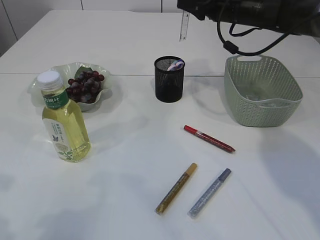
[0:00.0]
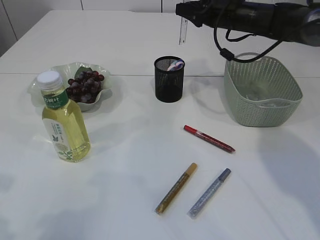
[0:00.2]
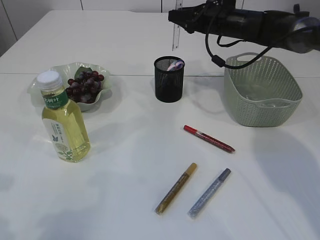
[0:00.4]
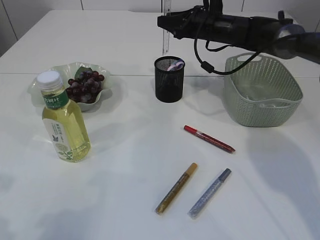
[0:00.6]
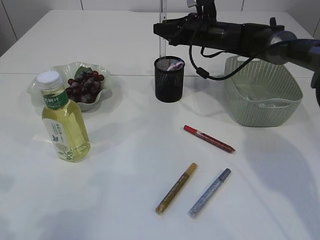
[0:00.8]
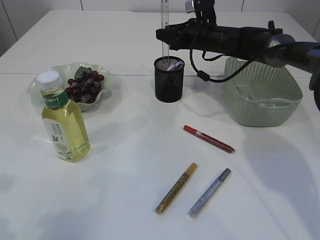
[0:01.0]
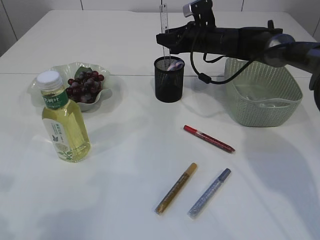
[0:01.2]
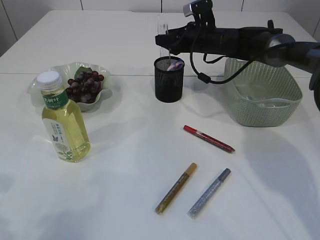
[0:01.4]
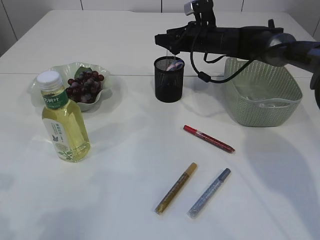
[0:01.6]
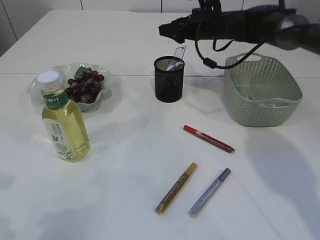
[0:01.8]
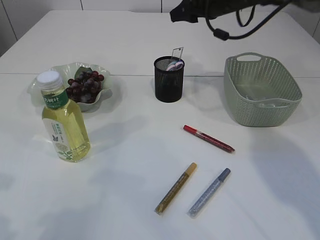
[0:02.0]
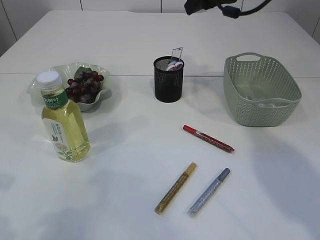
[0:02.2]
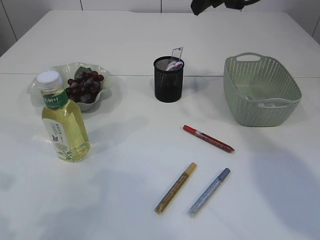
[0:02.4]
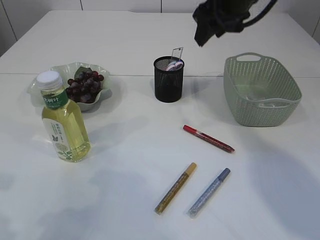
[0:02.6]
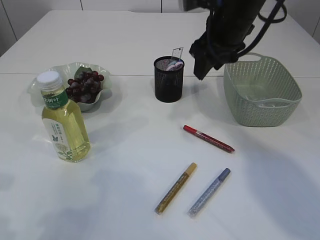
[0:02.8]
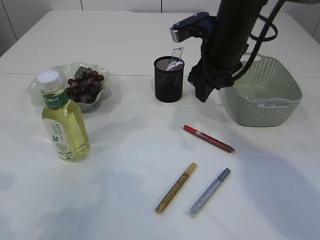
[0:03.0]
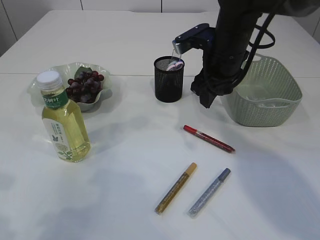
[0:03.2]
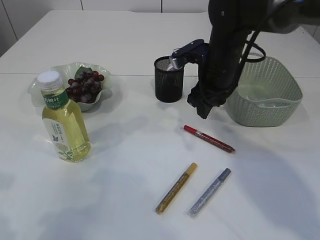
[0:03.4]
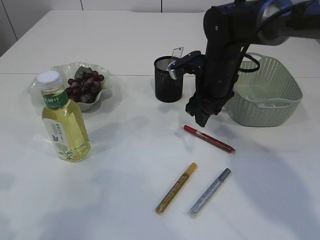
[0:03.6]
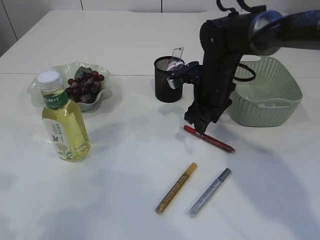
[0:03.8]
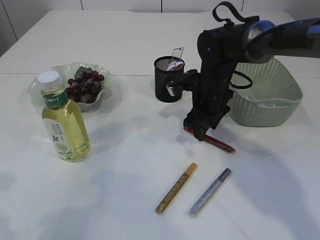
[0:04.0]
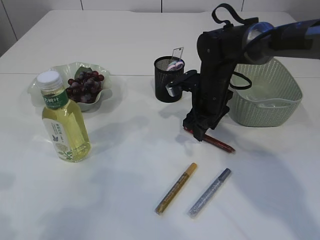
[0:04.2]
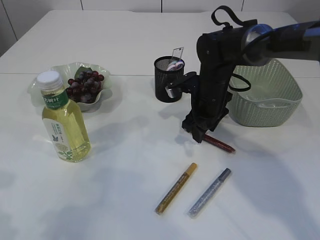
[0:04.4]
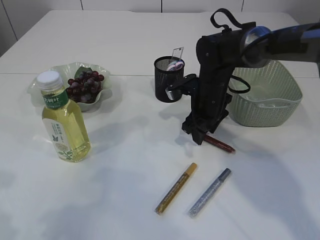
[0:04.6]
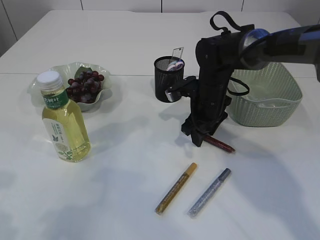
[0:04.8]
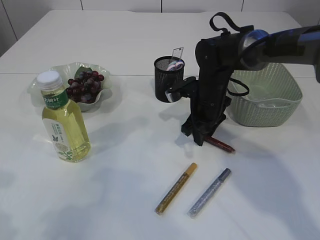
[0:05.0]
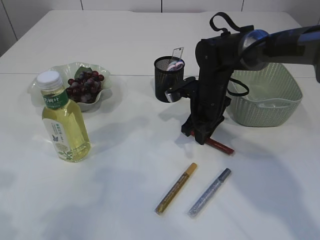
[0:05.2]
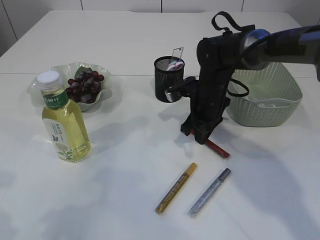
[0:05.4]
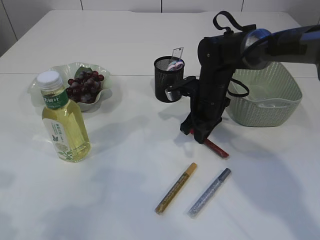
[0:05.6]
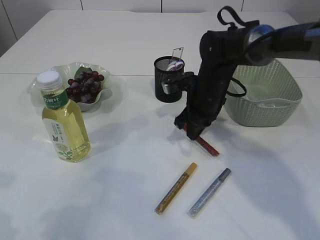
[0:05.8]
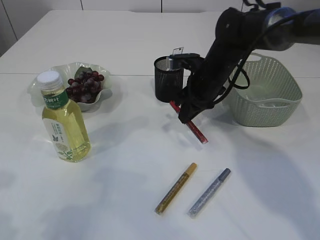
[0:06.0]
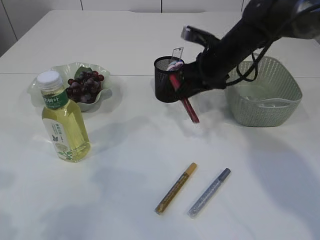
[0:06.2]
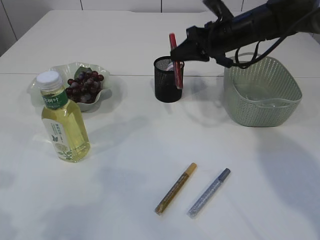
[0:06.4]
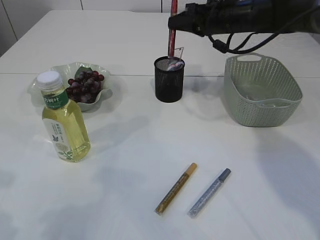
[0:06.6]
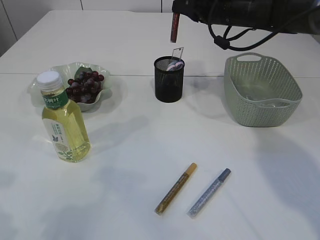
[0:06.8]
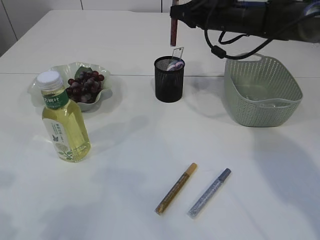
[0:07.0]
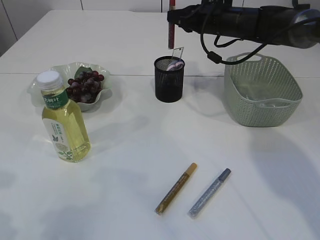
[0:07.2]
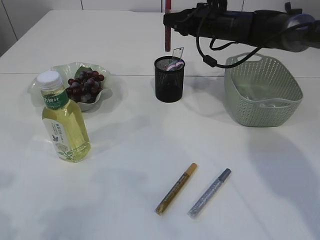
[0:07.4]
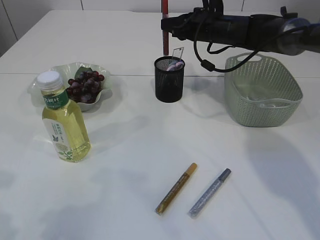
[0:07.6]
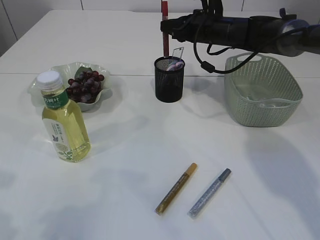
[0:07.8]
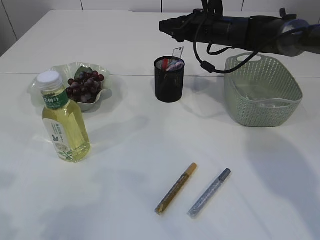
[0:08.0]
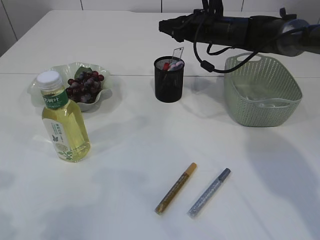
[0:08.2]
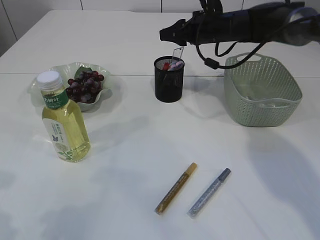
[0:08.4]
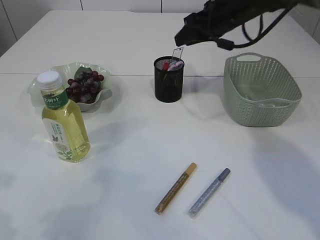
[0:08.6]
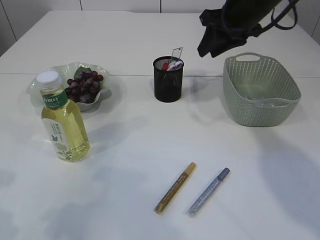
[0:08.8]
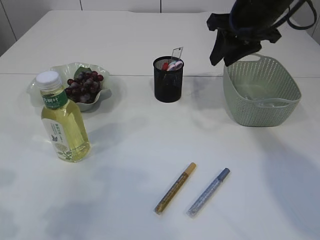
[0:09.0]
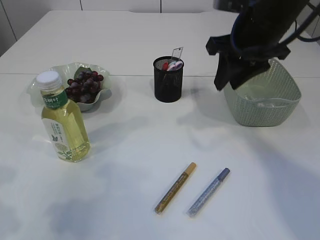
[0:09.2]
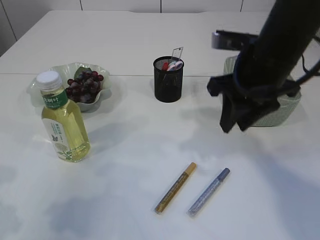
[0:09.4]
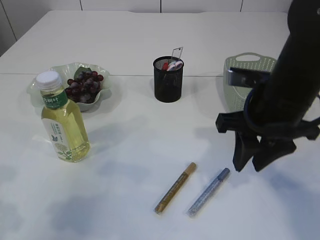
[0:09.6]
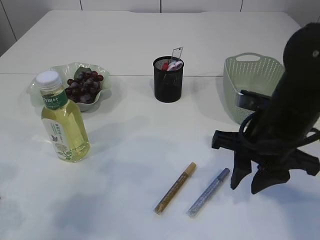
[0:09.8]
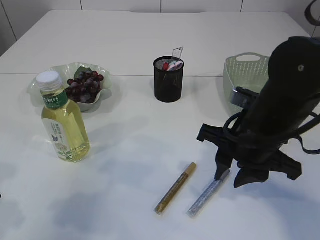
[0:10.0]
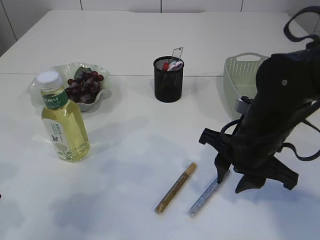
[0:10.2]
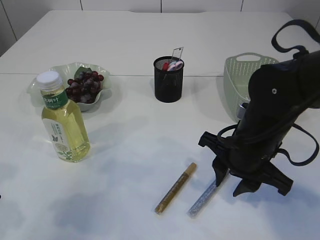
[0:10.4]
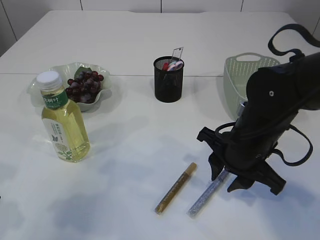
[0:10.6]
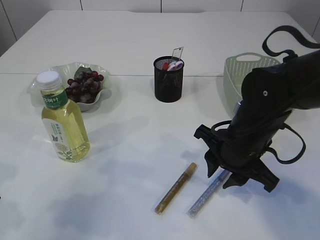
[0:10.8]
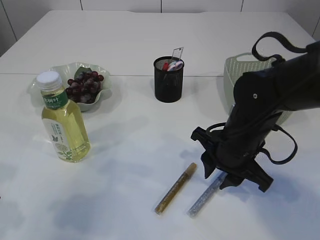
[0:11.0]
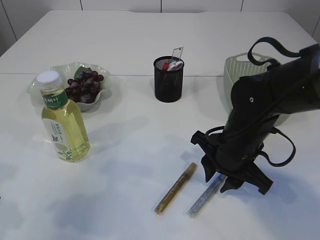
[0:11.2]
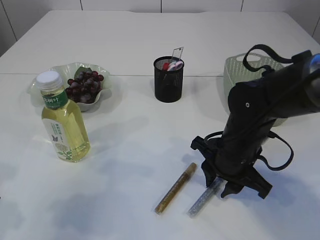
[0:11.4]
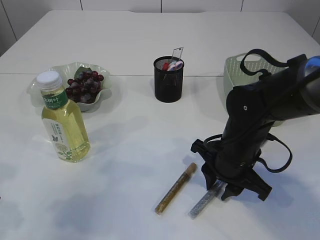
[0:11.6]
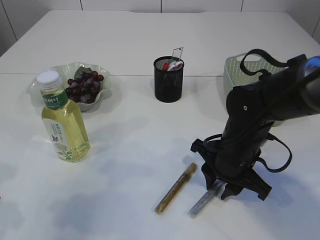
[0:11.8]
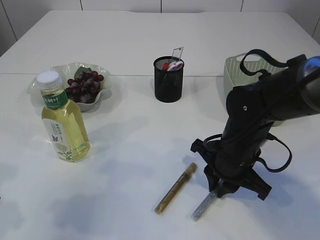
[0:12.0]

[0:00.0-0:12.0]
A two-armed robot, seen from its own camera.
Step, 0:00.0 to 0:01.8: Place the ruler into the pen holder.
Step, 0:02.0 to 0:06.2: pick up the red glue.
Step, 0:06.4 to 0:08.8: place the red glue into the pen holder.
0:00.0 to 0:01.6: The right gripper goes about 10 cm downward.
0:01.6 to 0:03.0: The right gripper shifts roughly 15 cm backward and upward.
0:03.0 to 0:04.4: The right gripper shifts about 15 cm downward.
0:04.4 to 0:06.0: The right gripper closes up.
0:06.0 to 0:07.6: The right gripper goes some 10 cm forward and upward.
0:07.6 to 0:09.0: The right gripper travels backward and upward by about 15 cm, and opens up.
0:09.0 to 0:10.4: The right gripper is displaced backward and downward by approximately 20 cm.
0:10.4 to 0:12.0: The right gripper ends up roughly 5 cm from where it was.

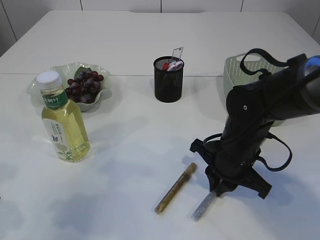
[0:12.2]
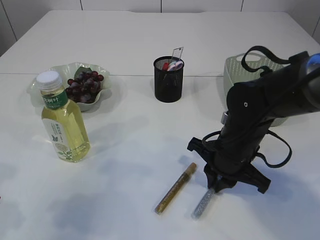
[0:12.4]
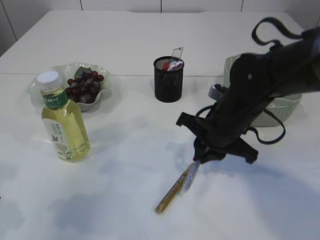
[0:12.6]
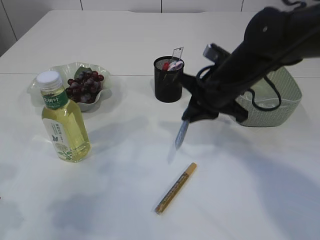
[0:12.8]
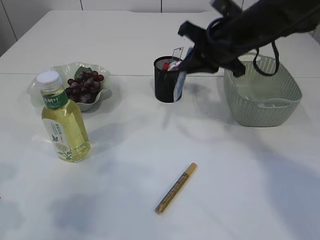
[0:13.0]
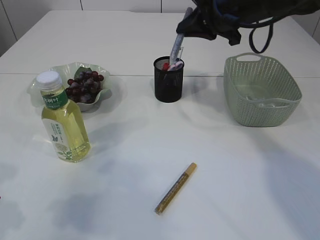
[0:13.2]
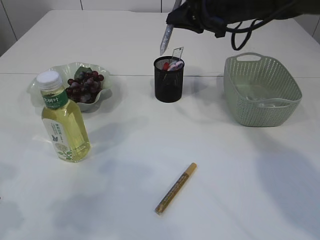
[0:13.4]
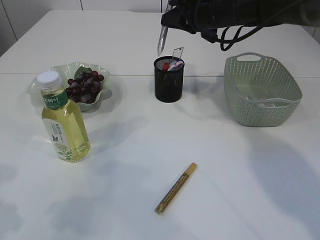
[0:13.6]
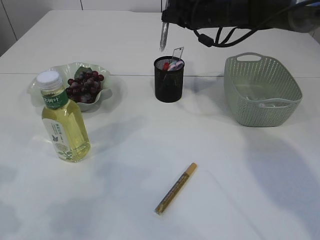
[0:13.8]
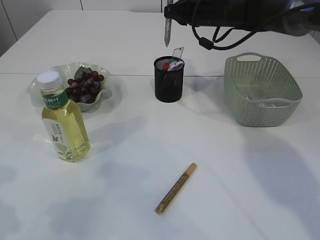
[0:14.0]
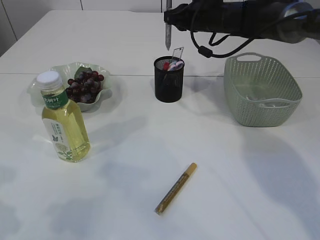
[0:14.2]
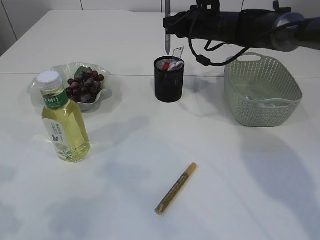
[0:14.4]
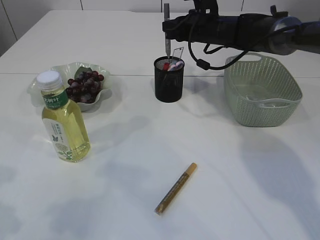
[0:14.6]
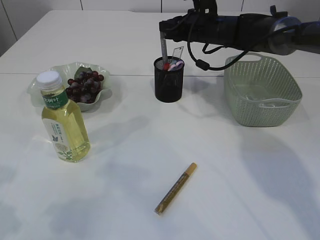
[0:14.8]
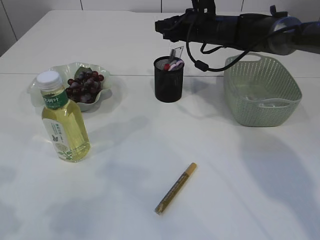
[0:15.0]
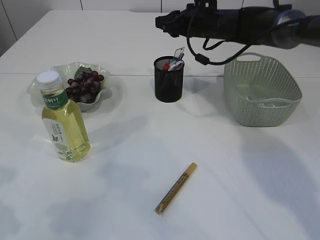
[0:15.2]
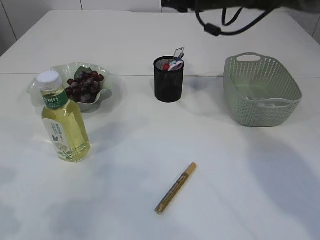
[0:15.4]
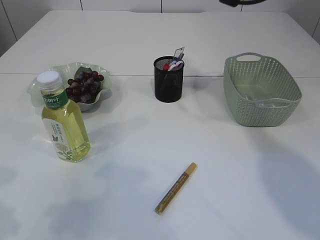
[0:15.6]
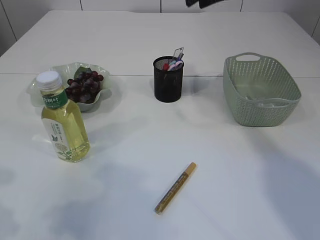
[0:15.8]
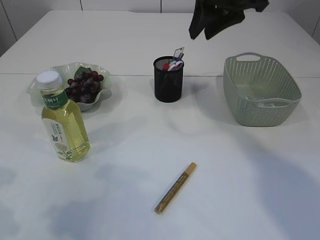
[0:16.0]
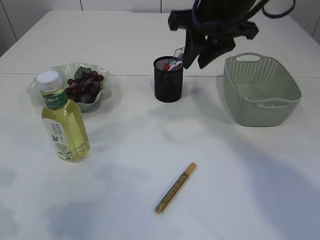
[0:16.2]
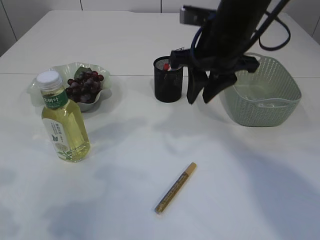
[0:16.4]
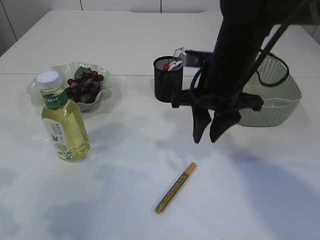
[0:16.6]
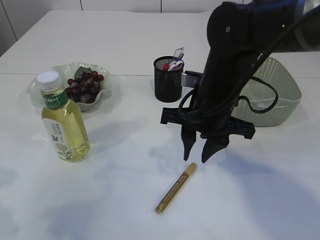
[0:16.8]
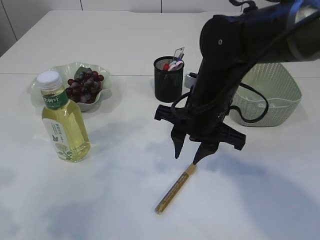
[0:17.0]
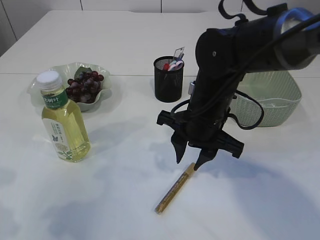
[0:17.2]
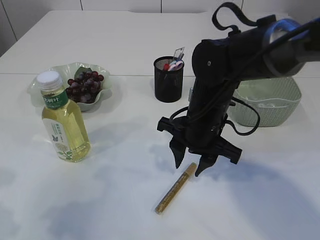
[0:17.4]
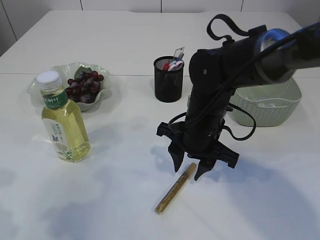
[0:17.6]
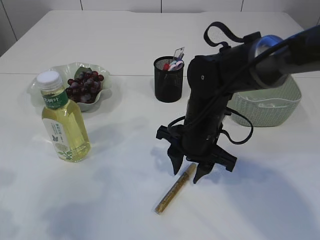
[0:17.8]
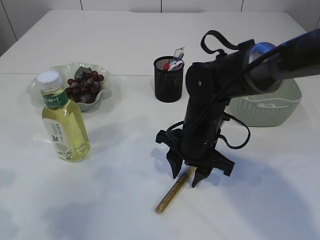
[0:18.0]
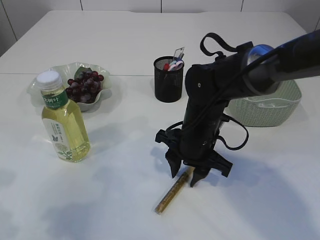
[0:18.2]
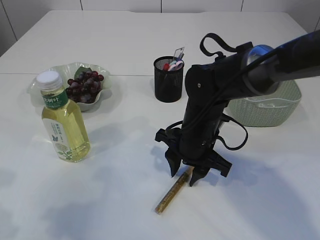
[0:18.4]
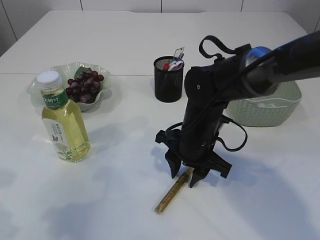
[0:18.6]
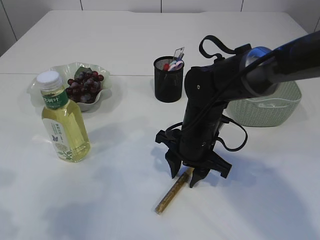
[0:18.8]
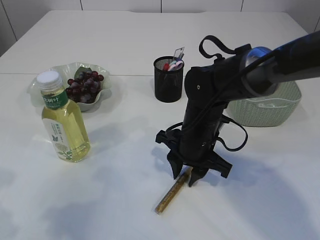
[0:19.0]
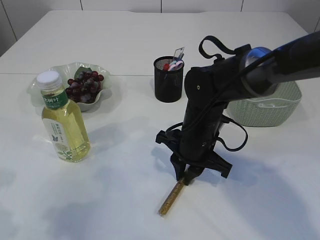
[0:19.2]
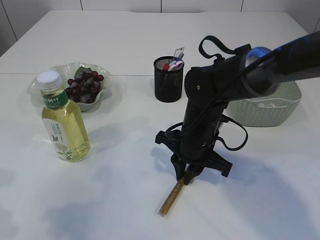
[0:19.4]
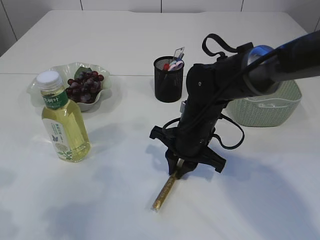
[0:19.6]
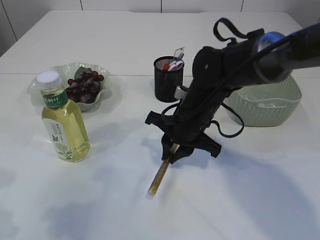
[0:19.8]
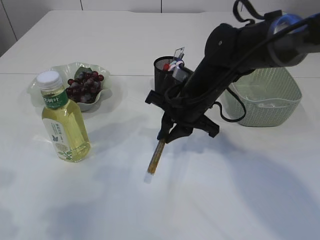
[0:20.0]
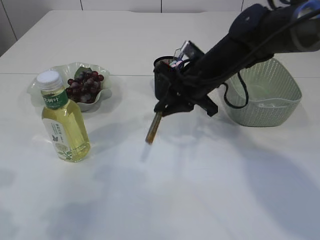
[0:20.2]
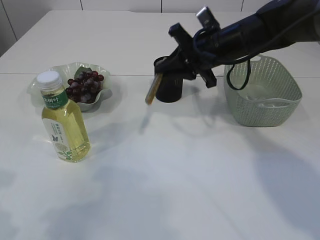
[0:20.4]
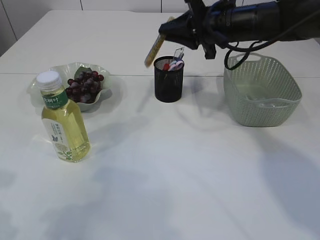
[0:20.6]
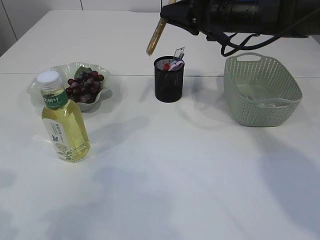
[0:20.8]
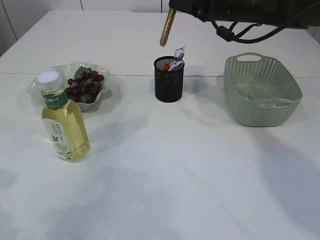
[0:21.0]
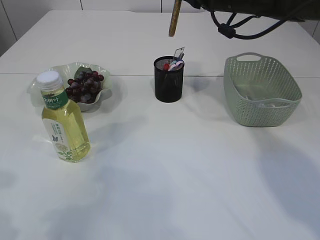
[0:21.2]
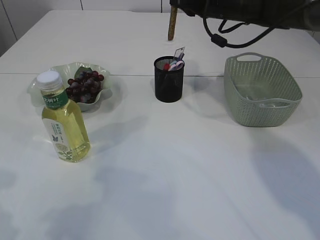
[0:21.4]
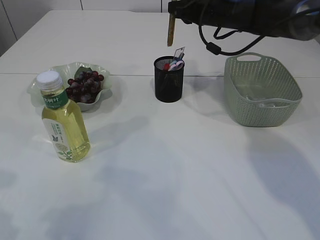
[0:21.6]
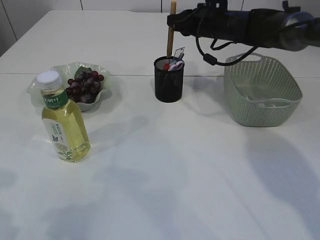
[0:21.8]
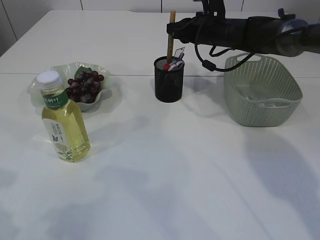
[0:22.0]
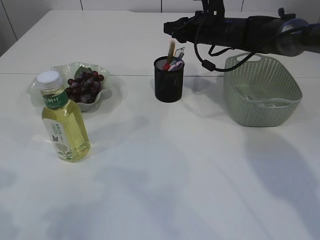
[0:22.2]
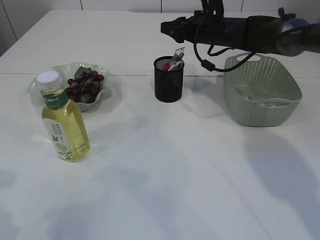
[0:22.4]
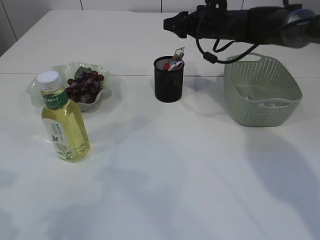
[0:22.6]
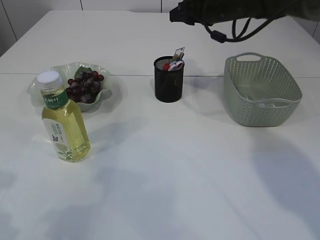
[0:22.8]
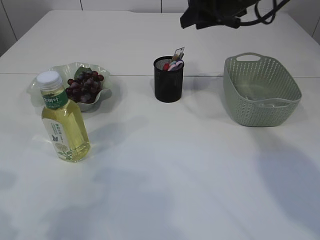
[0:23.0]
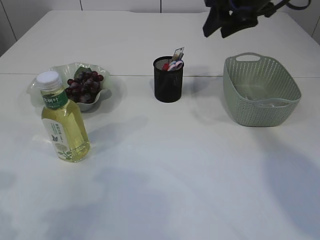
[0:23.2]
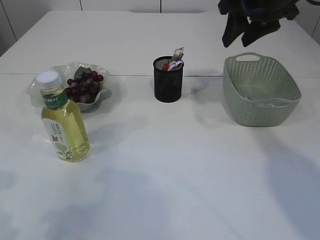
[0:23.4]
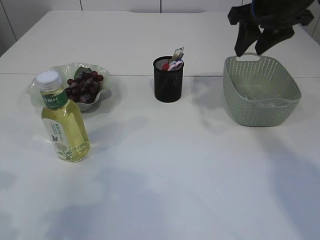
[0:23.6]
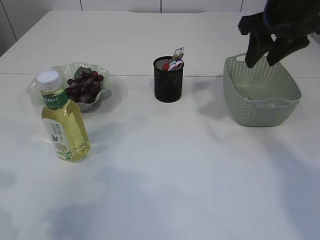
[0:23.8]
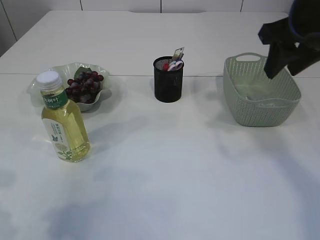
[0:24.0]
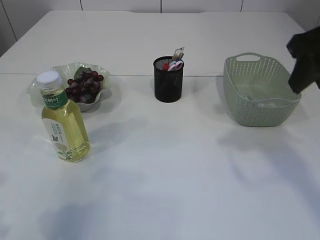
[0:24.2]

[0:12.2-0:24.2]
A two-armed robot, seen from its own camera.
Step, 0:12.8 to 0:15.0: place the silver glue into the pen holder.
Step, 0:15.2 to 0:20.2: pick up the yellow glue.
Step, 0:20.4 to 0:22.6: place the yellow glue into the pen holder.
0:12.2 to 0:13.8: The right gripper goes about 25 cm forward and upward.
0:13.8 to 0:15.2: The right gripper opens its fingers.
0:15.2 to 0:16.6: The right gripper is displaced backward by about 20 cm.
0:16.6 to 0:18.2: The right gripper travels downward by about 10 cm.
0:18.2 to 0:19.8: The right gripper closes its fingers.
0:19.8 to 0:21.2: The right gripper shifts roughly 20 cm upward, forward and to the right.
0:21.2 to 0:22.6: The right gripper travels downward and forward by some 10 cm, and opens its fingers.
0:22.6 to 0:24.2: The right gripper moves backward and upward, some 30 cm.
